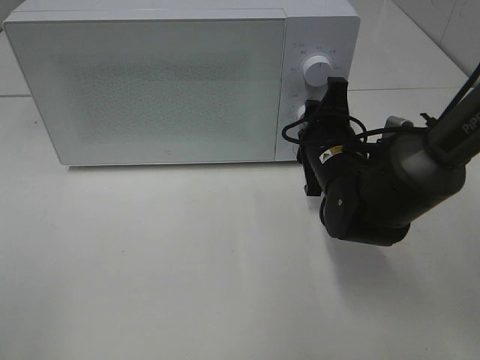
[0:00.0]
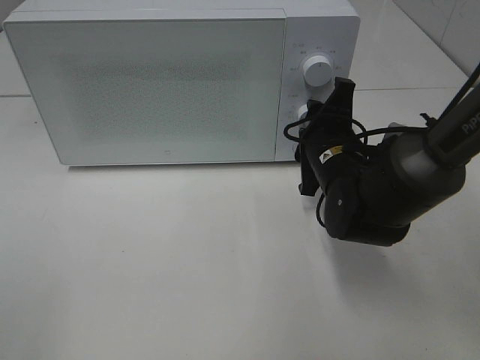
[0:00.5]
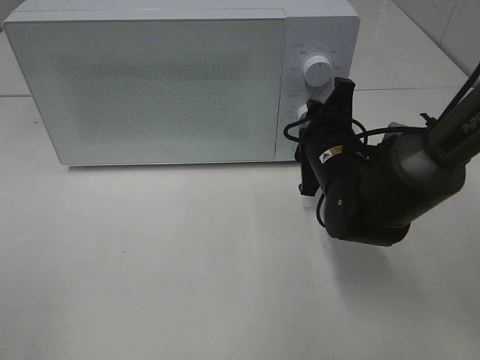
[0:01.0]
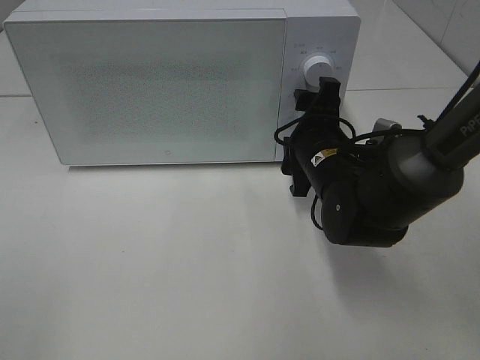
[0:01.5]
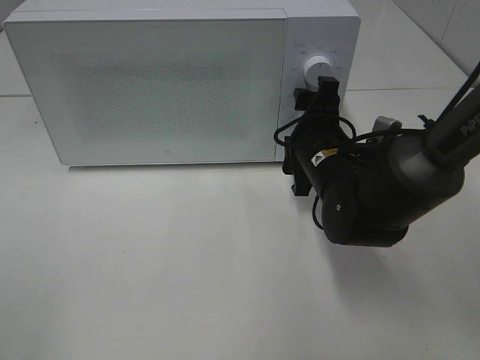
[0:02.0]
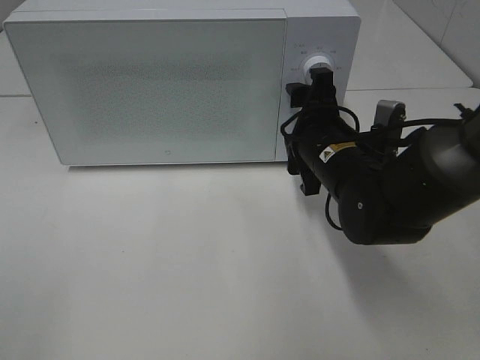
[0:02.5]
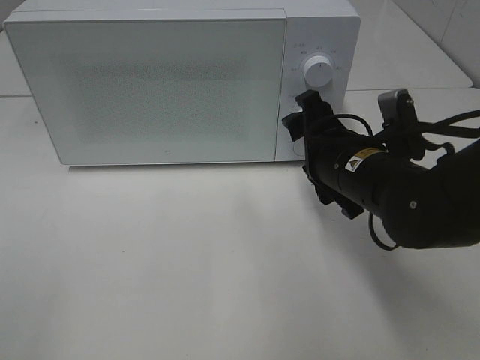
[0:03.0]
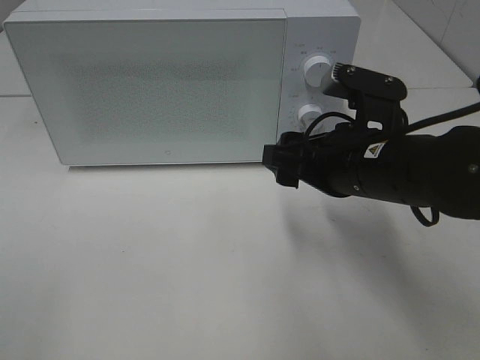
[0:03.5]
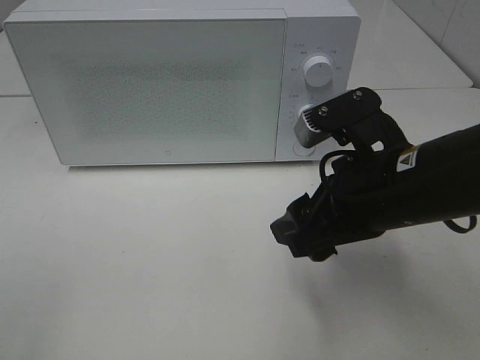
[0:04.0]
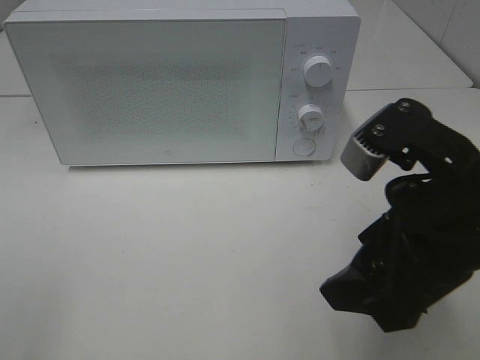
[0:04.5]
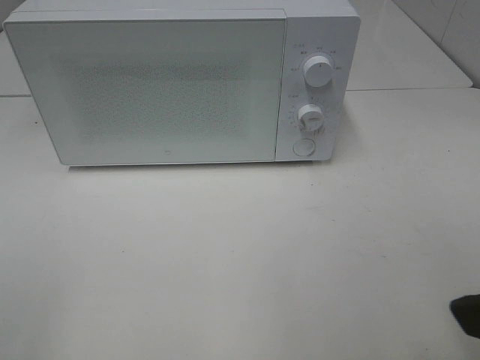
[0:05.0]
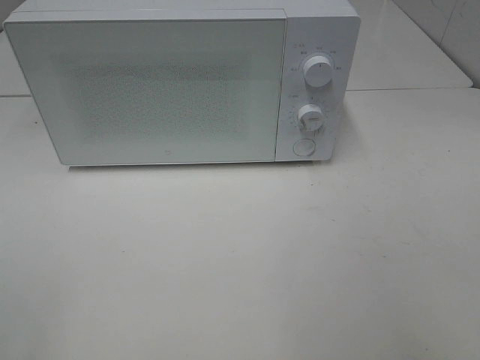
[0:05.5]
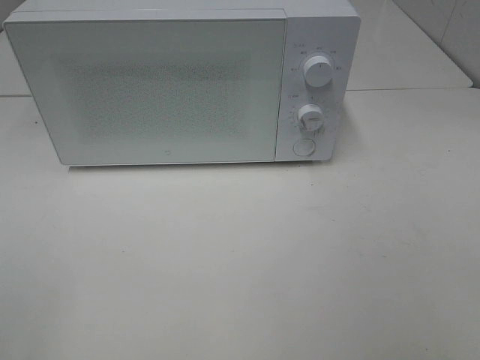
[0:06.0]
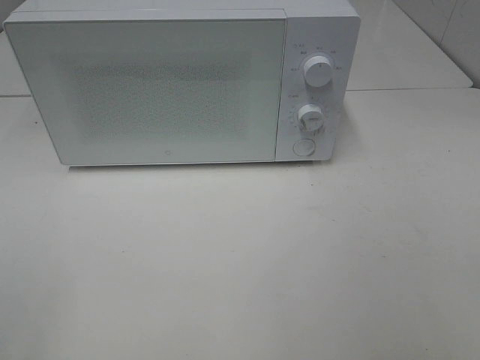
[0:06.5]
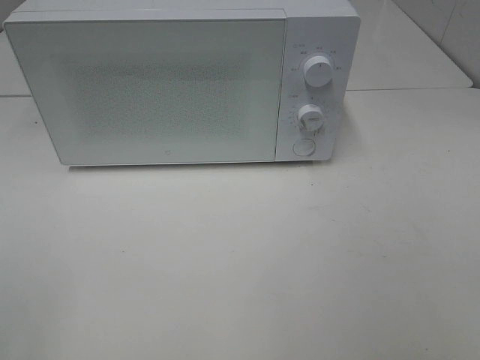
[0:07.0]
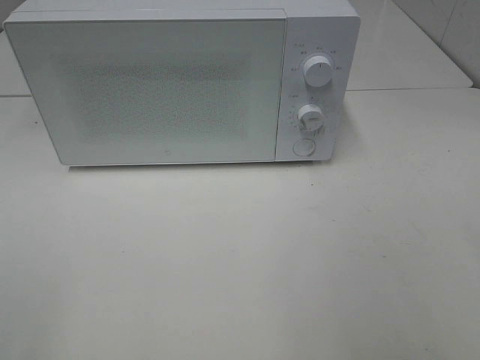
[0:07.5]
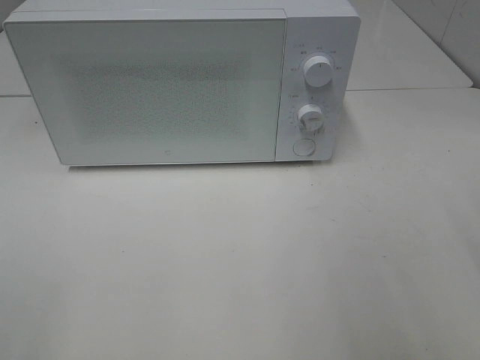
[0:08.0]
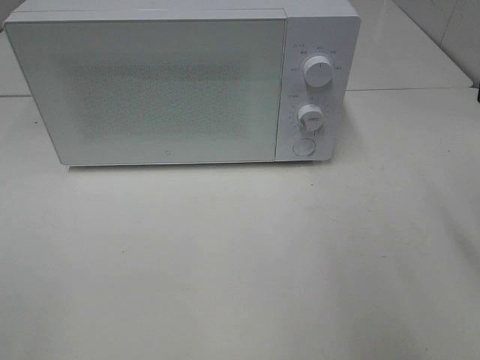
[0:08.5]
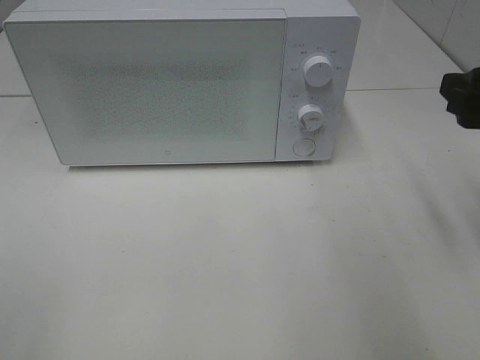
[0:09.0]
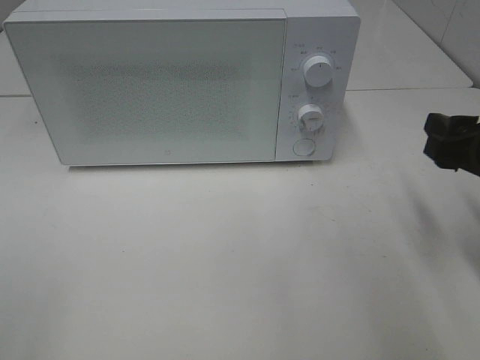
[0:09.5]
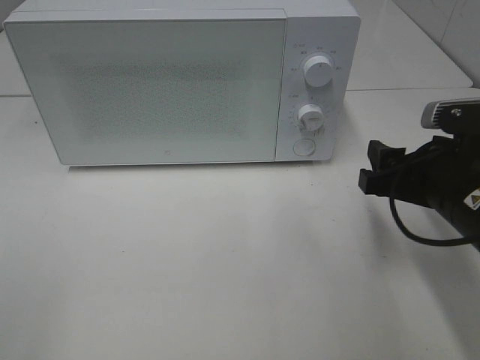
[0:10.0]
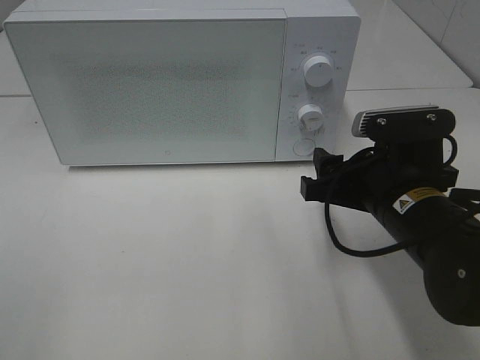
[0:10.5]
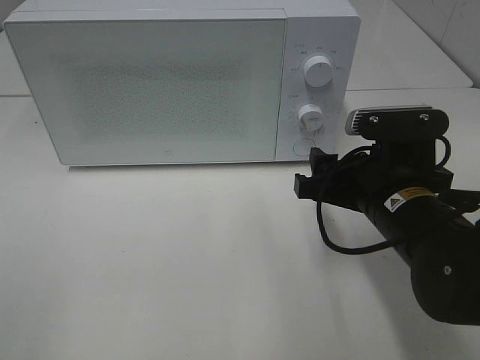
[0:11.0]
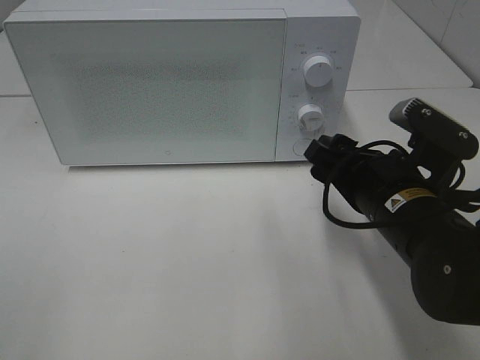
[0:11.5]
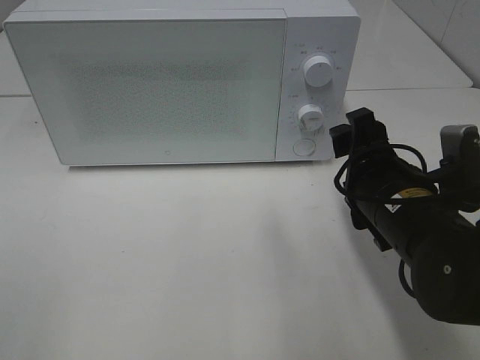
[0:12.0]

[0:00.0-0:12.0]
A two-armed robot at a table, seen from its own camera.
Task of the whole recording: Heat Sandwich.
Step, 0:00.0 to 0:02.5: Right hand: twist timer button.
0:00.0 to 0:02.0: Both grippers stay about where they are.
0:02.0 to 0:04.0: The right gripper is displaced backward and upward by roughly 15 cm.
0:04.0 to 0:06.0: The right gripper shifts about 25 cm backward, to the right and upward.
0:08.0 to 0:10.0: The right gripper is displaced downward, forward and to the left by approximately 20 cm.
0:10.0 to 0:12.0: The right gripper goes about 5 cm to the left.

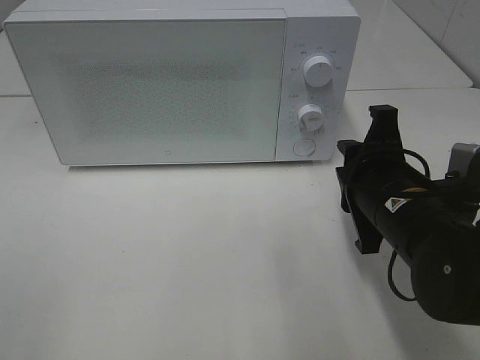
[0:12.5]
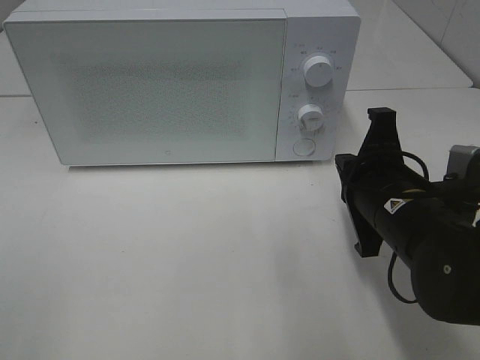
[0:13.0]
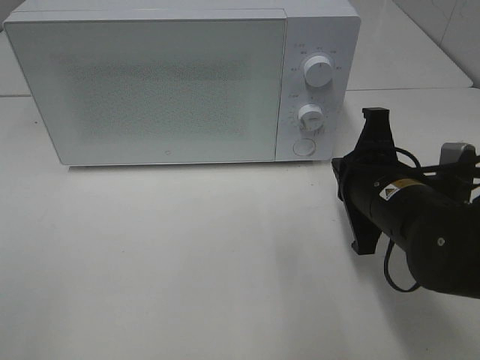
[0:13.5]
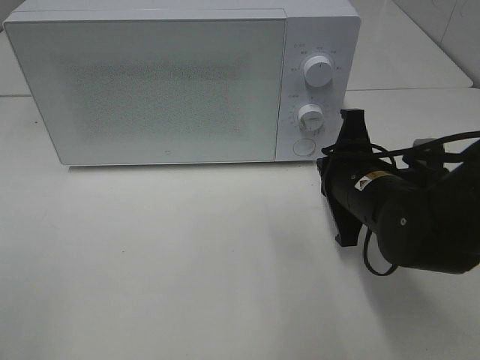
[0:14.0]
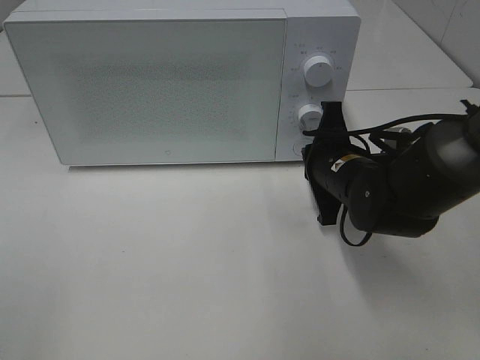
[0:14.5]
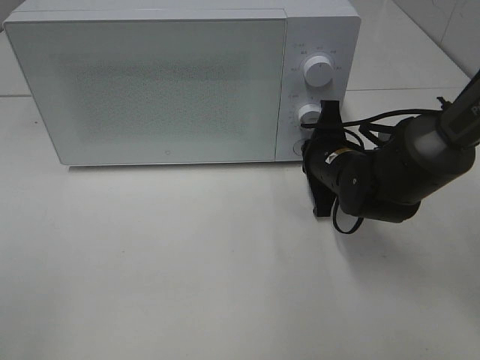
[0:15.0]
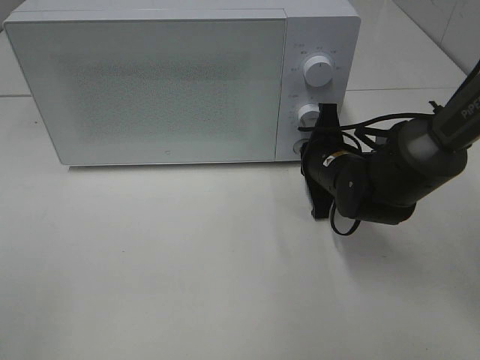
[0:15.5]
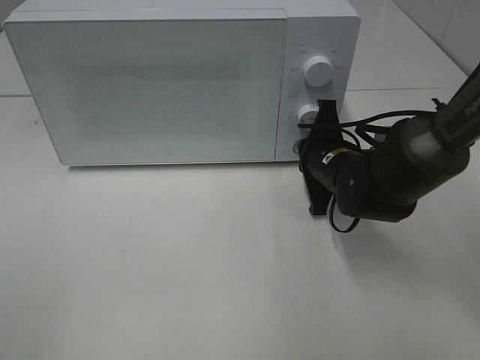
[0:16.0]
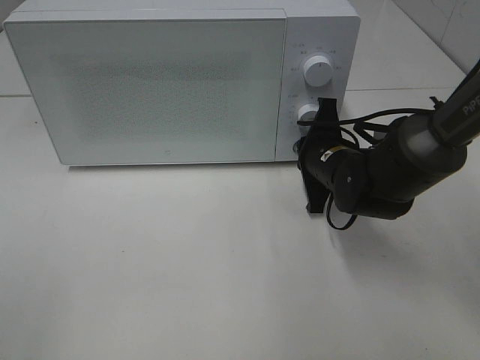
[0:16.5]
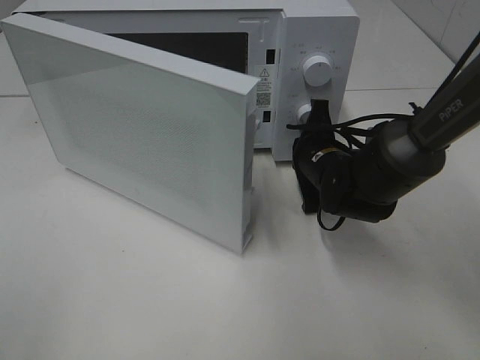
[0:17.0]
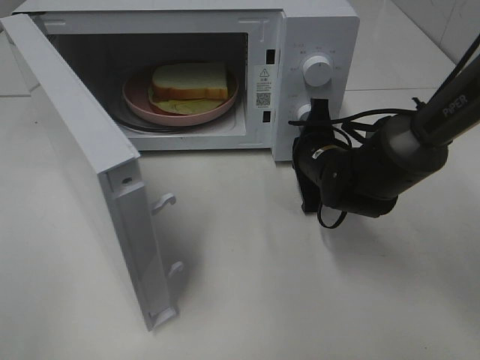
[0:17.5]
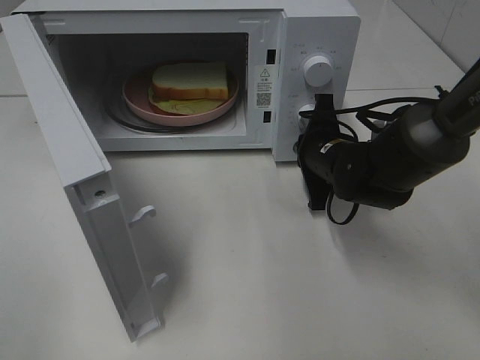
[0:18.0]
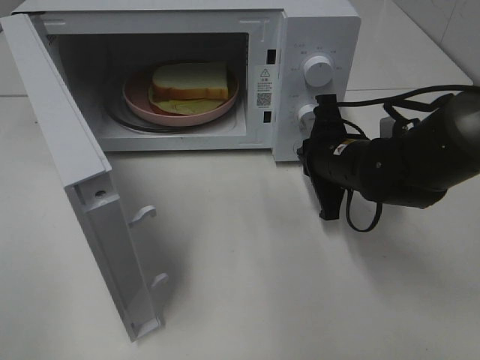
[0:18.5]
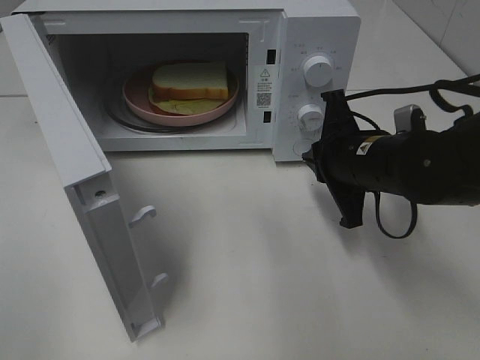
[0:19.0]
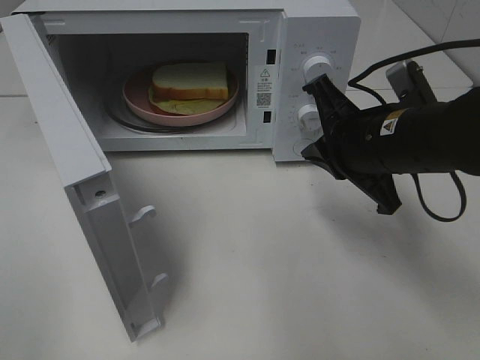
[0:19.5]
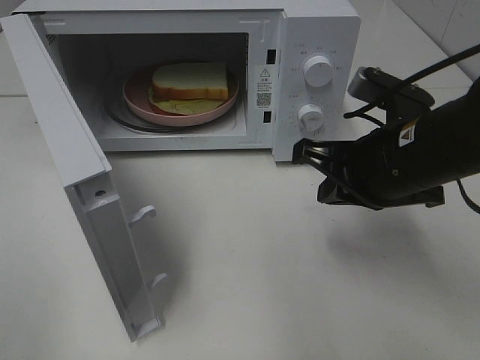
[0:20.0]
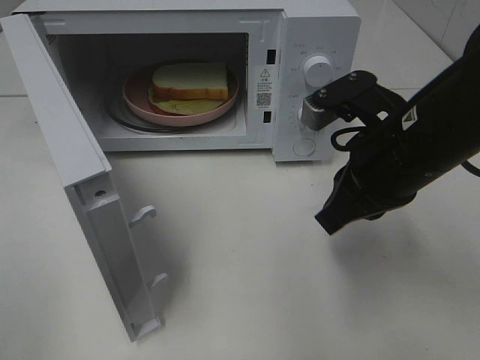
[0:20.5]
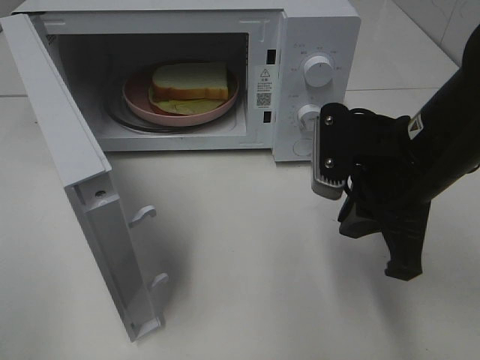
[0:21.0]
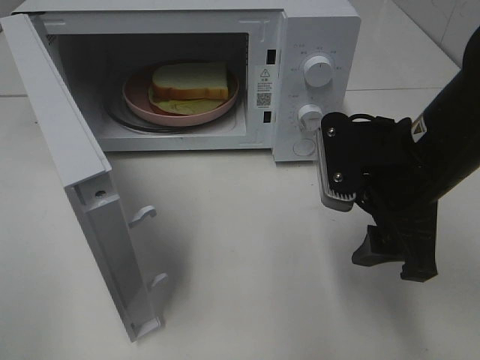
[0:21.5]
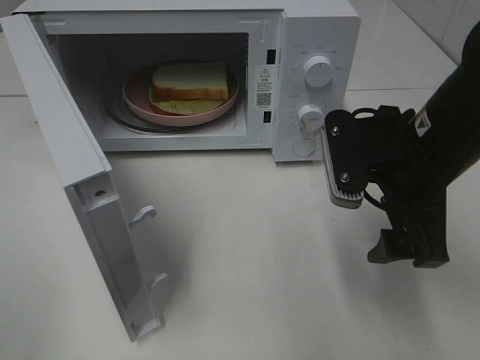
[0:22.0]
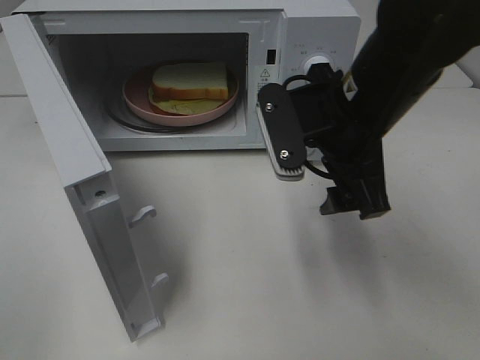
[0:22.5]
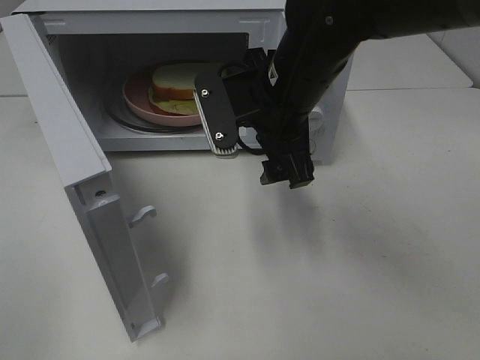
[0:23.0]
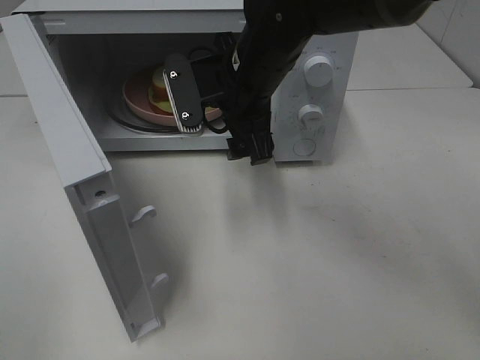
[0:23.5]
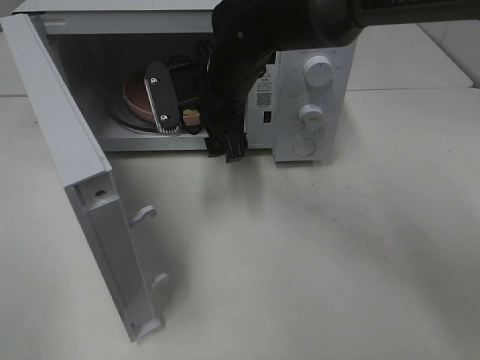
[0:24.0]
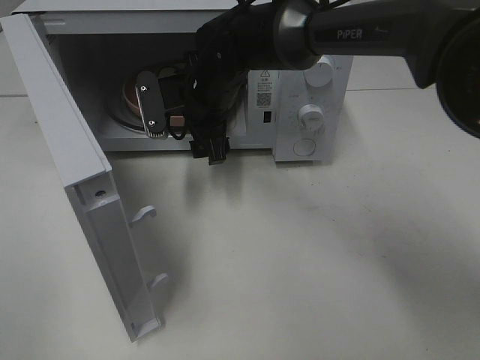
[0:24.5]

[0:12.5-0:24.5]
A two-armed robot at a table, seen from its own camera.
Task of the whole recording: Heat Sandwich.
Step, 0:12.5 to 0:18.0: Right hand: press the switch.
0:12.5 to 0:14.5: The right gripper moves forward, some 10 cm, and closes.
0:14.5 to 0:16.5: There are only small adjustments of the grippers.
0:18.5 to 0:20.5: The right gripper moves upward and backward, approximately 15 cm.
0:20.5 to 0:22.5: The right gripper moves some 5 cm, and opens up.
0:22.5 to 0:24.5: The right gripper heads forward, to the left and downward, covering some 20 cm.

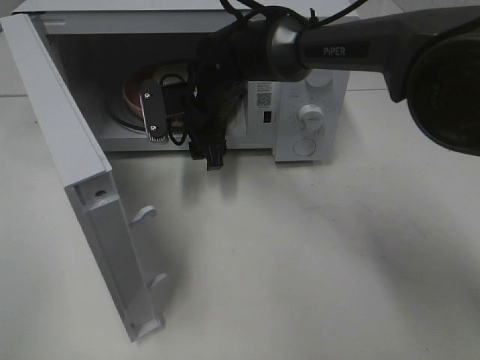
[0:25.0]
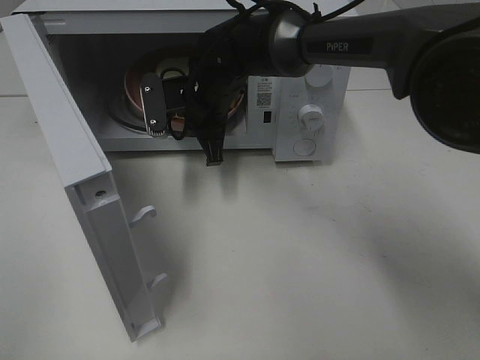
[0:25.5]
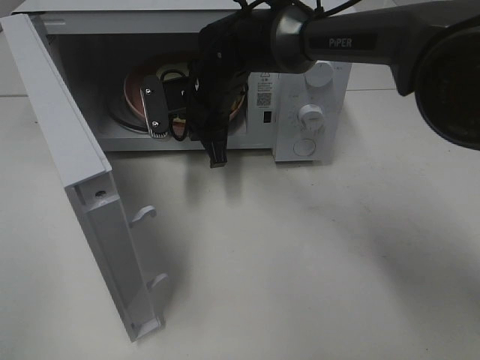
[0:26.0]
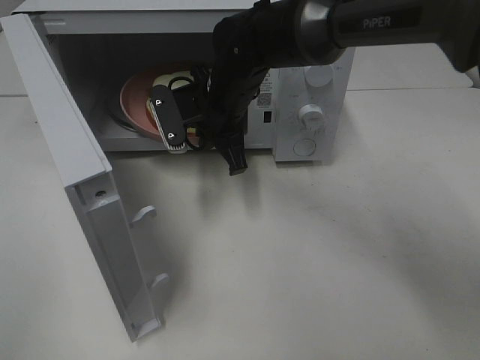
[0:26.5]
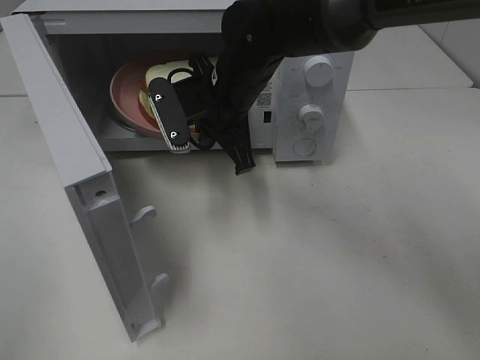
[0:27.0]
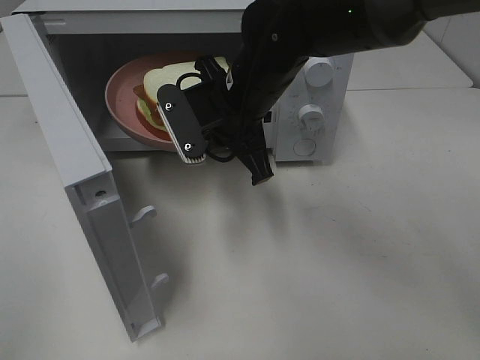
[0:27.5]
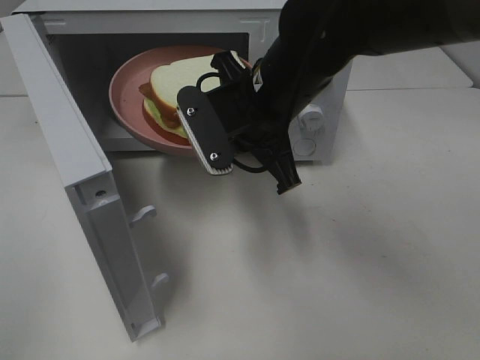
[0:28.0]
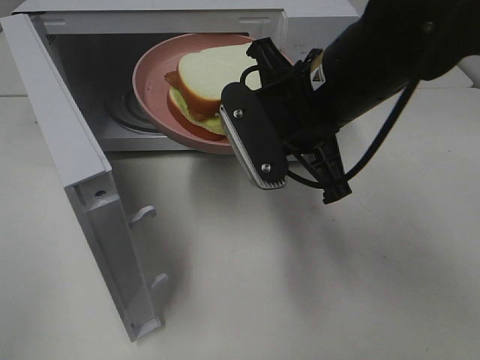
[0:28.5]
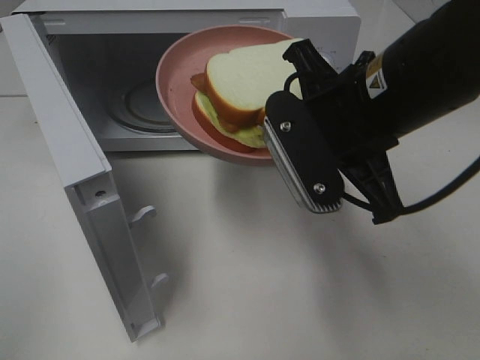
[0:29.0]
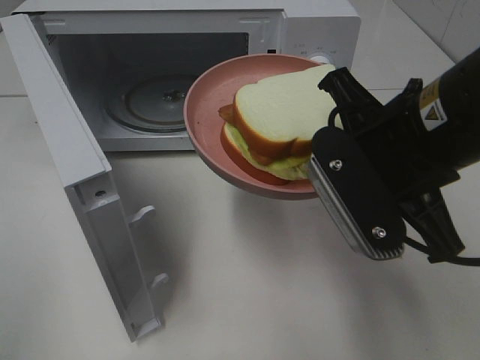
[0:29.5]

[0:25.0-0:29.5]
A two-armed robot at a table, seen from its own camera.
Task of the whole recording: Heat Sandwich.
0:25.0 to 0:27.0: The right gripper moves backward, about 5 cm, and closes.
0:27.0 to 0:29.5: The right gripper shifts approximately 20 cm backward and to the right.
